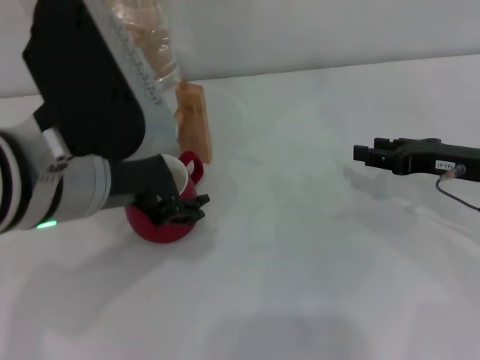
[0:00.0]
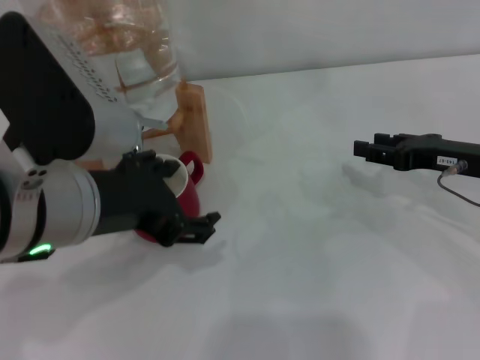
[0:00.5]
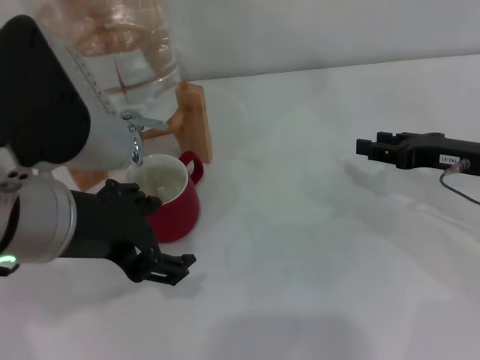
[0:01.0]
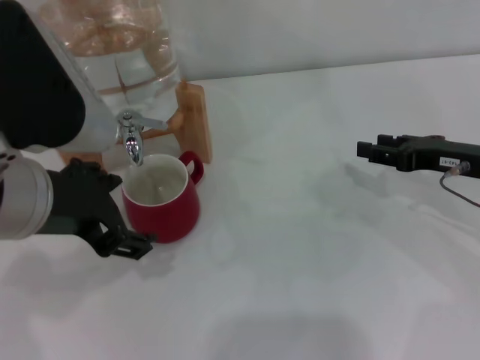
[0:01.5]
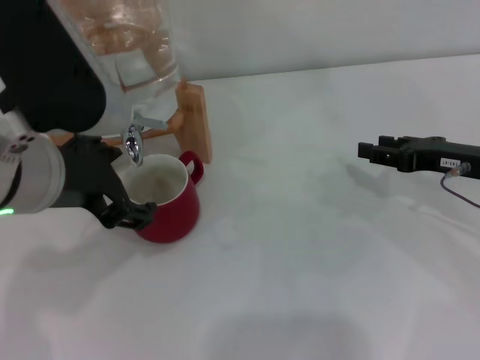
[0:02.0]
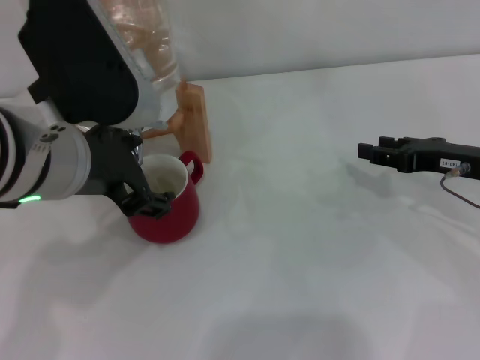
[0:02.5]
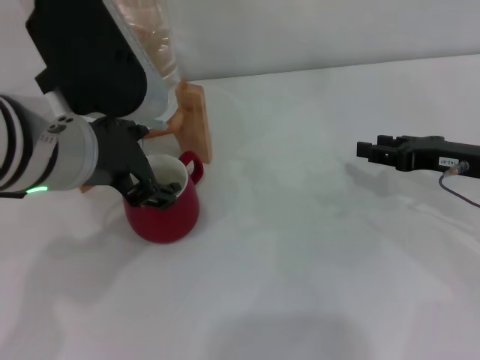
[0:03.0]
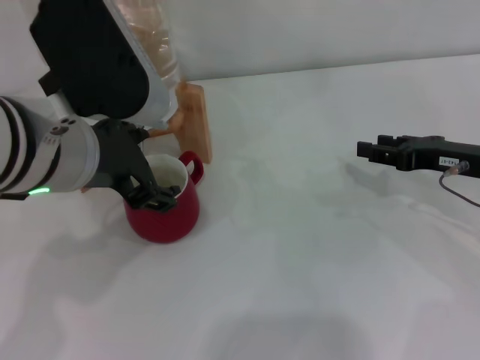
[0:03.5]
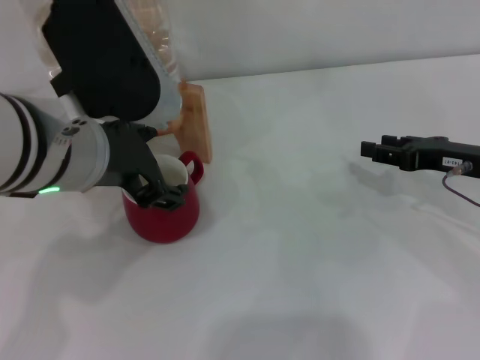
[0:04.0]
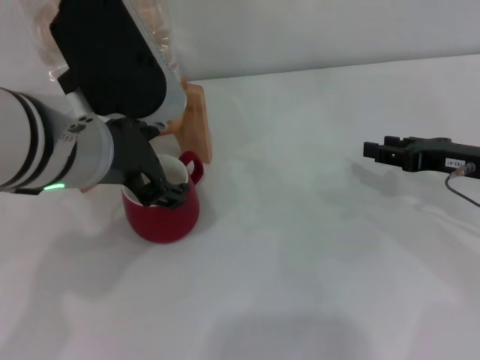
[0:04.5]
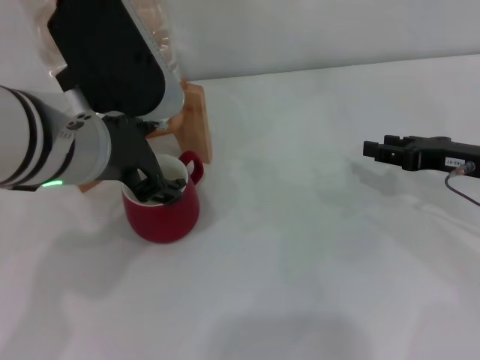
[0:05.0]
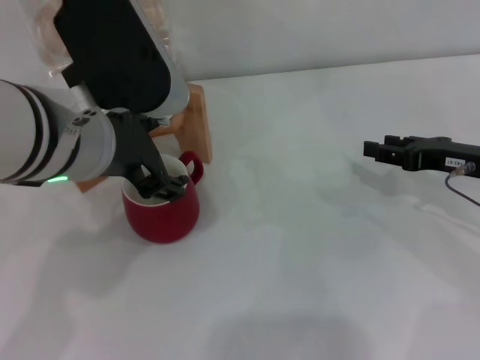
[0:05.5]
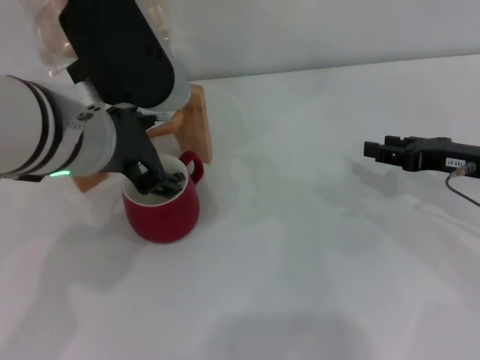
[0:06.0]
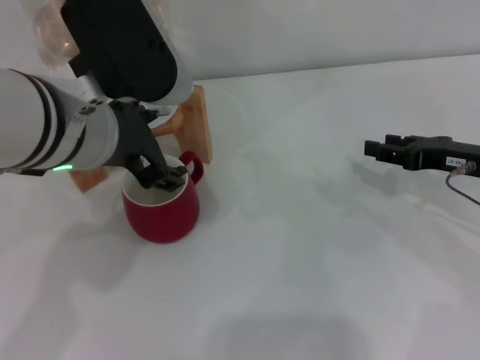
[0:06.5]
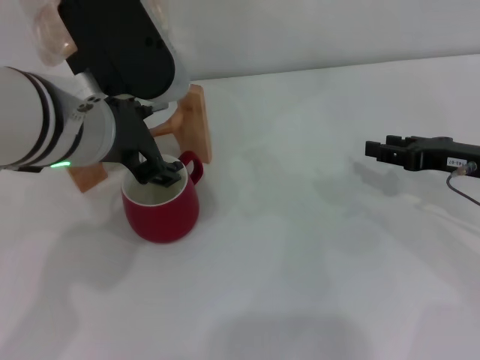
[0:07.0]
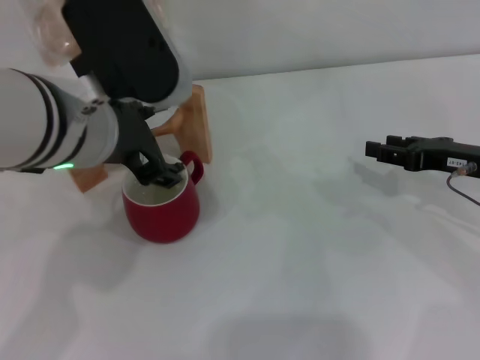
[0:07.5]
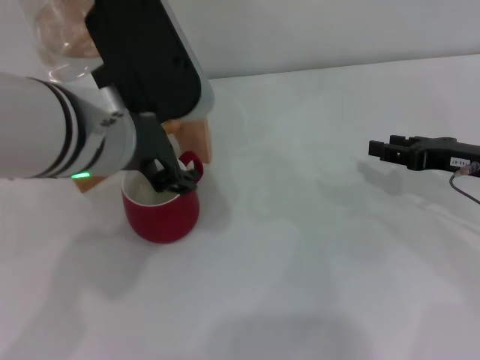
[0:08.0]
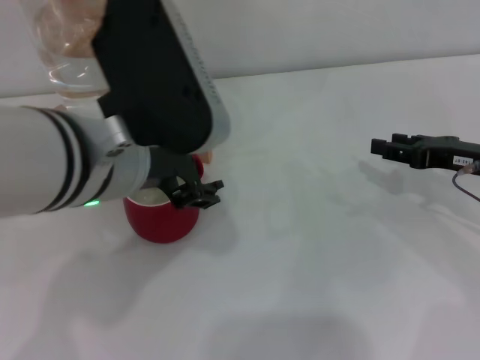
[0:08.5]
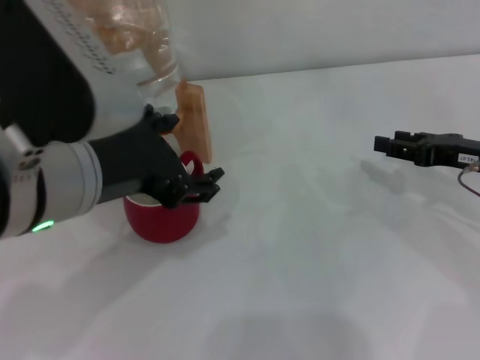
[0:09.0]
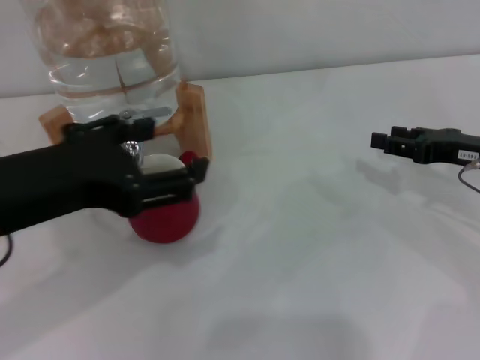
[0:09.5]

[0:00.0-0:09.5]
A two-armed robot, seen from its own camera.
Task of the whole recording: the right gripper pick up the red cup and place it horizontally under the faucet, the left gripper turn on the faucet to fill the cup, and then turn off the faucet.
0:00.0 to 0:04.0: The grippers move only a little.
0:04.0 to 0:05.5: Both grippers stay about where they are.
0:05.5 to 0:07.5: The two grippers keep their place.
0:07.5 to 0:09.5: The left gripper travels to the left and backward by approximately 10 cm.

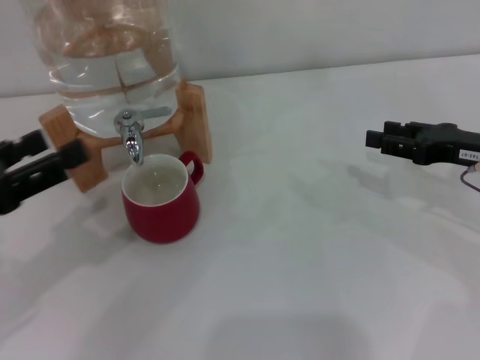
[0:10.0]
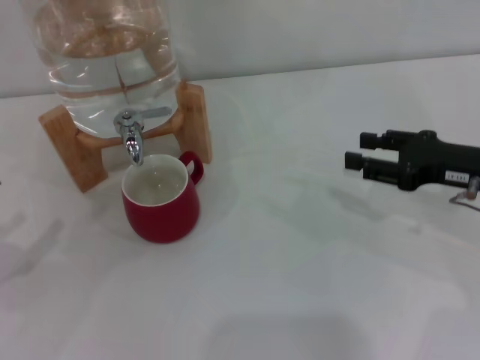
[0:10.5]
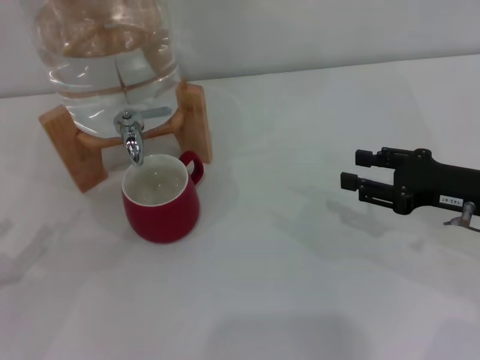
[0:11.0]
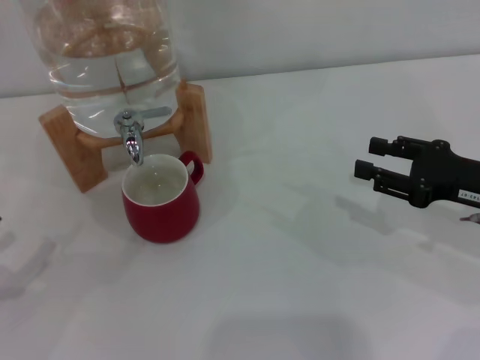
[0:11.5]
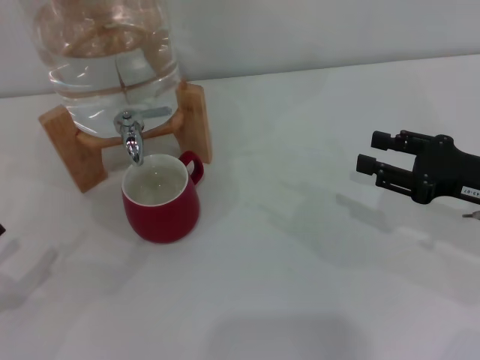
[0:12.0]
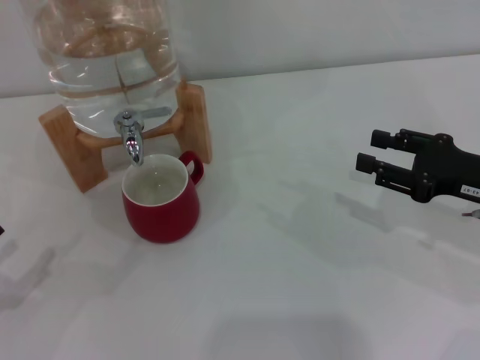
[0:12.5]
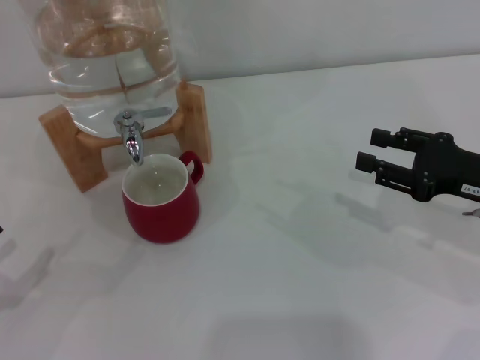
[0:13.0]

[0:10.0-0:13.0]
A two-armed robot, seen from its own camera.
Task of the whole recording: the right gripper pick up the red cup and place it horizontally under the faucet, the left gripper turn on the faucet to fill the cup, and then turn off the faucet.
0:10.0 to 0:11.5: The left gripper heads downward and to the left, covering about 15 cm.
0:11.5 to 0:13.0: The two grippers keep their place.
